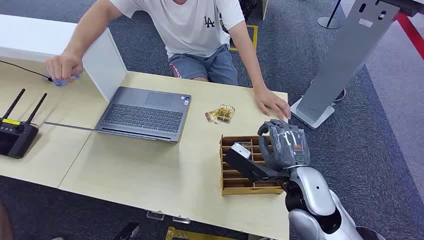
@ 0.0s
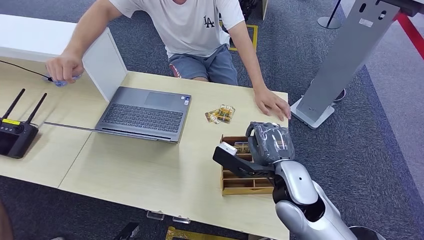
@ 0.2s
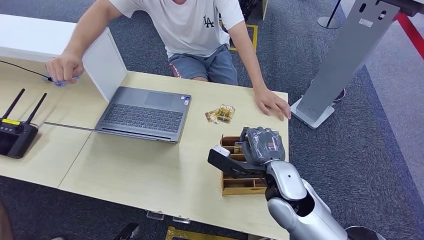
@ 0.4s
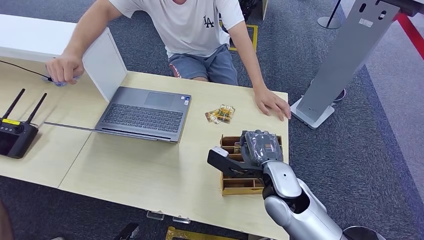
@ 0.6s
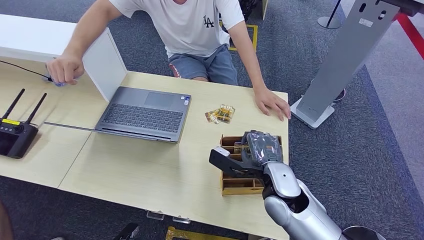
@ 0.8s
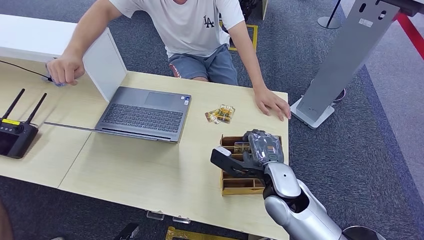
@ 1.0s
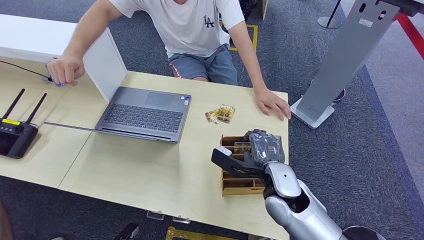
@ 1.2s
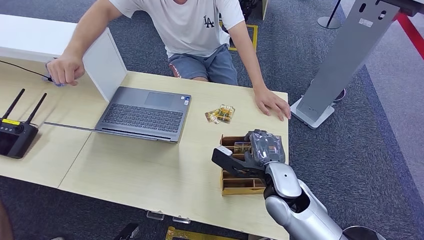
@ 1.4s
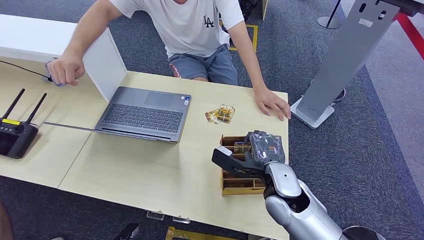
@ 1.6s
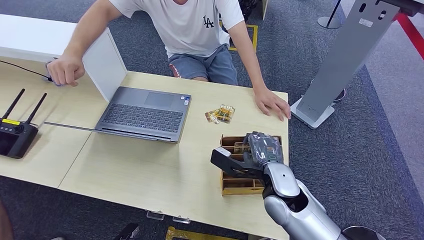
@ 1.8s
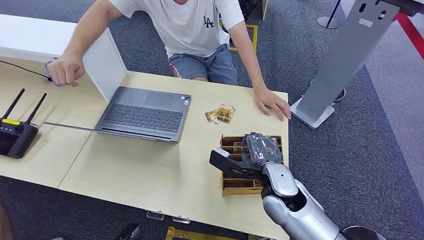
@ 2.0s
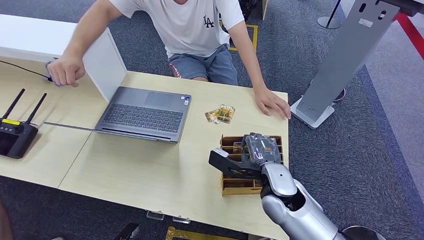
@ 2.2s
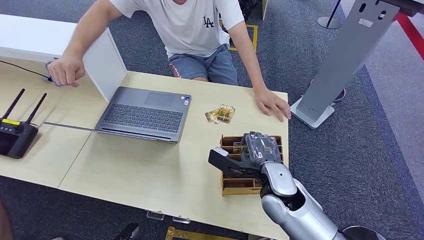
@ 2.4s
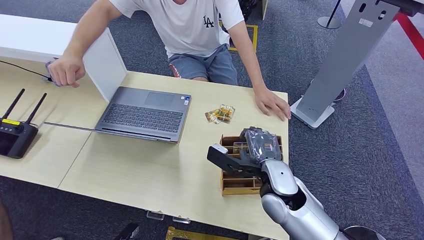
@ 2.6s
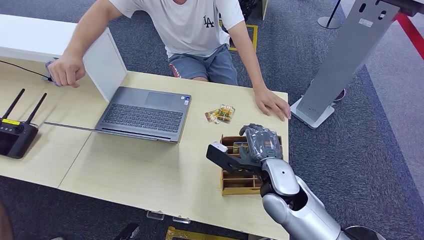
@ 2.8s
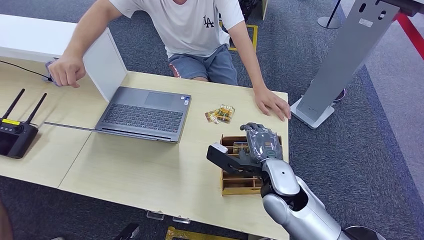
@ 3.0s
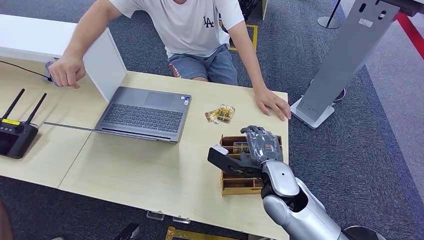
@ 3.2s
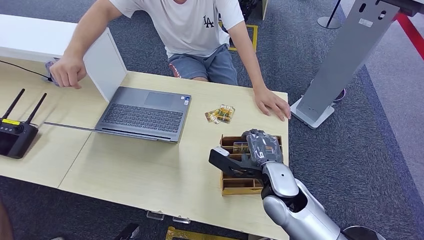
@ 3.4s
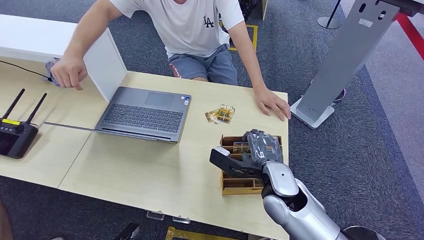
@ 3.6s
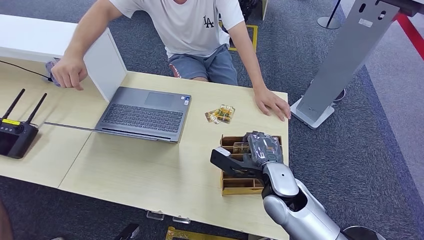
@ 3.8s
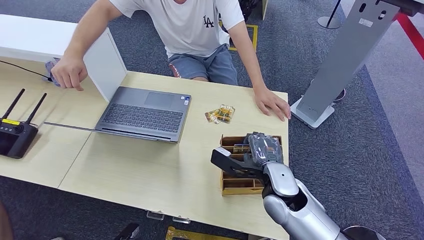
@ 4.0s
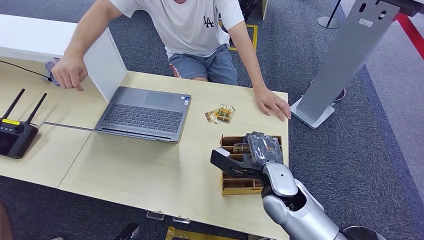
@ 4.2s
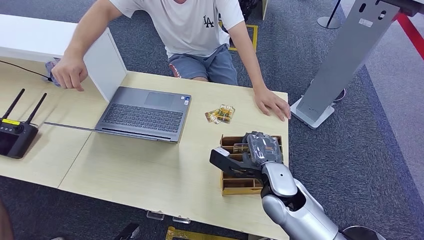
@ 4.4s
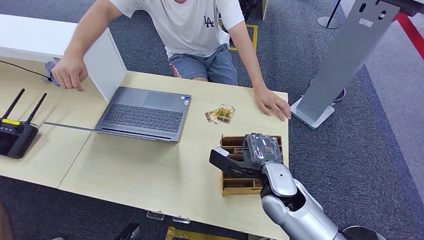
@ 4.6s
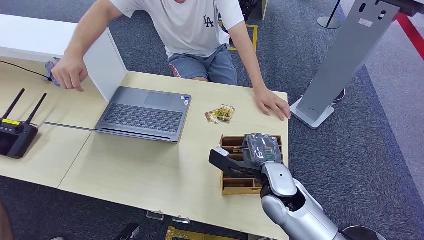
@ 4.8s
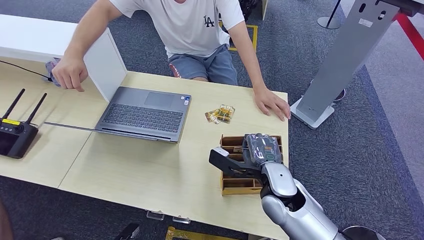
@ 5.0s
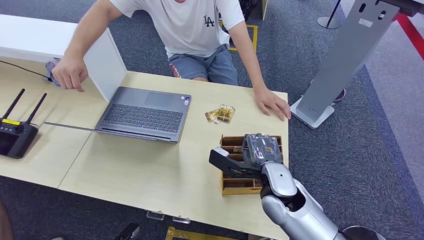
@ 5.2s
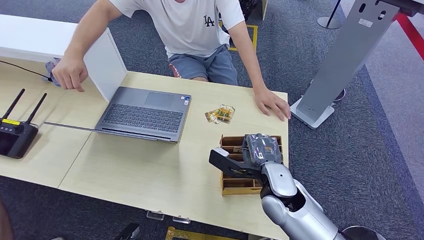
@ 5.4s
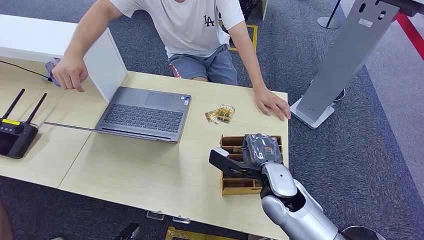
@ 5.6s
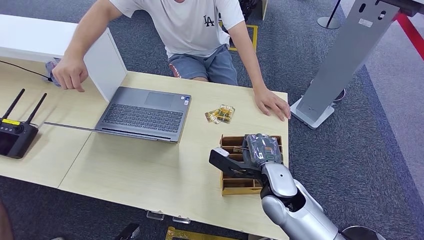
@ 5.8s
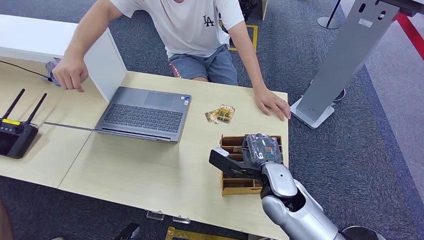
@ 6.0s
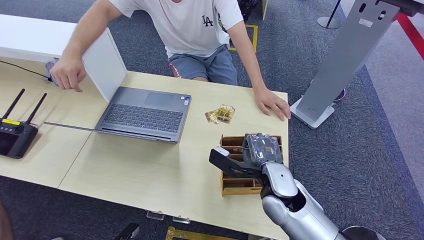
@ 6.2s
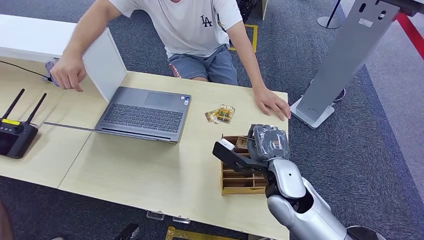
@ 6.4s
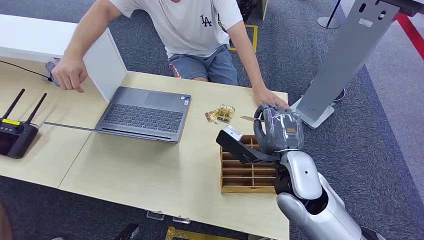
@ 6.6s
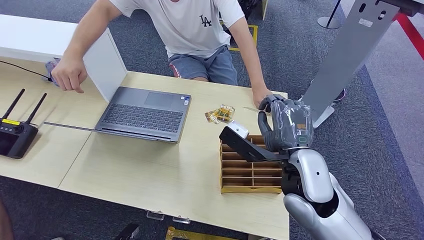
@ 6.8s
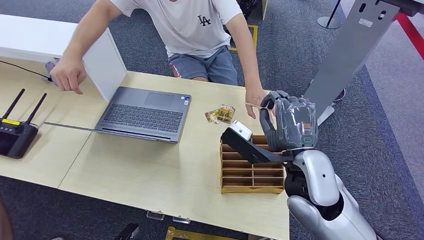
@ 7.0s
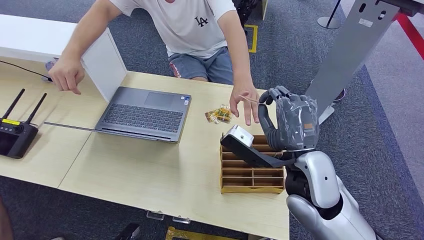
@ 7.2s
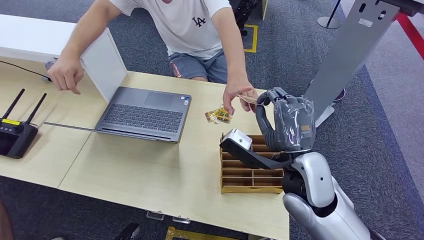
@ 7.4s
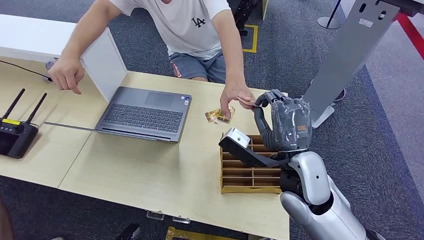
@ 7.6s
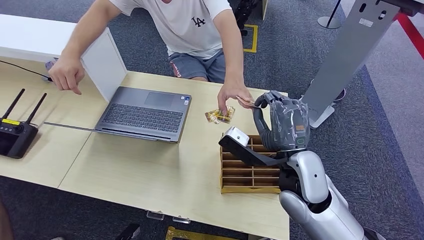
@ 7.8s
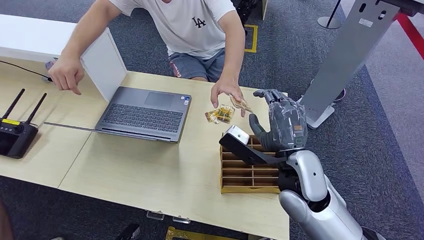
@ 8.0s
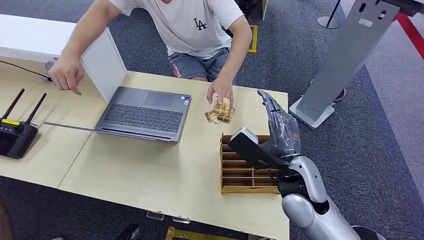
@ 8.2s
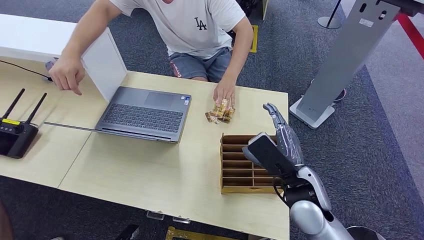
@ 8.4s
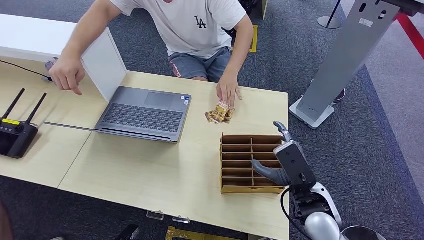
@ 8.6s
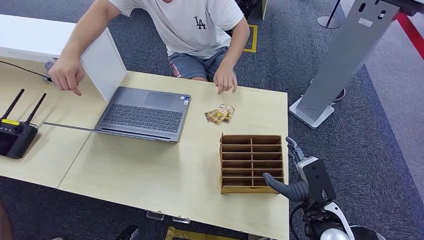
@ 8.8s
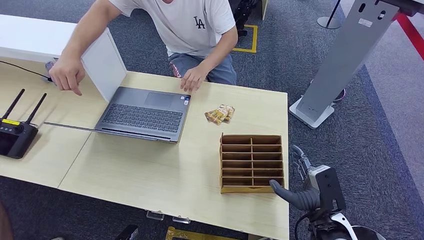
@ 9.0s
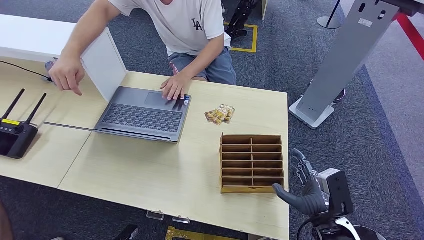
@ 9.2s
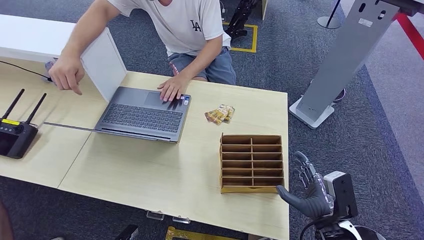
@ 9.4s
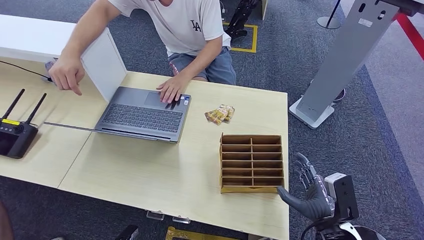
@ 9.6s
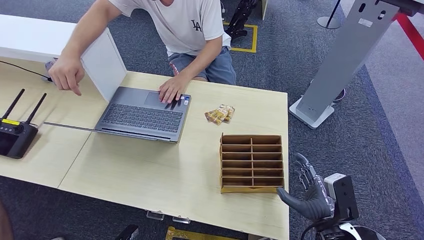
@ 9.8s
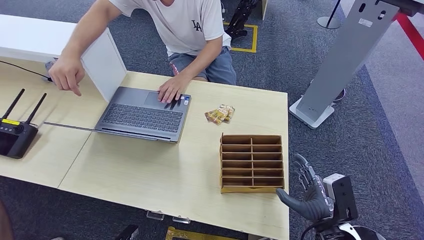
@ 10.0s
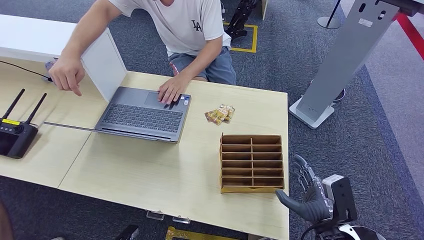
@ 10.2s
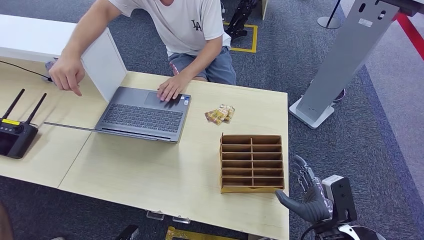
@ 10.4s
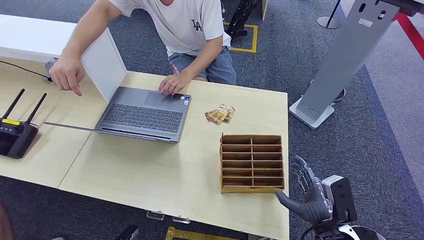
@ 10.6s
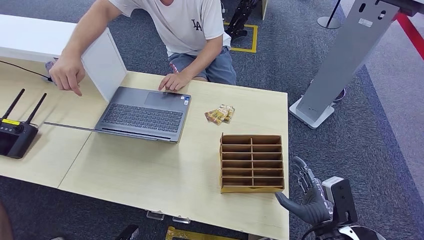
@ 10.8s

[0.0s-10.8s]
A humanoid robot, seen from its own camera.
Step, 0.0s to 6.6s: Pick up the room card from the card holder.
Step, 6.8s to 10.8s: Hand the room card to the target.
1.6s to 4.6s: The hands make only small movements.
4.6s to 6.2s: The two hands keep their place.
6.2s to 7.8s: The right hand heads upward, covering about 10 cm.
7.8s to 9.2s: The right hand shifts some 20 cm downward, to the right and backward.
9.2s to 10.8s: There are only small adjustments of the hands.
